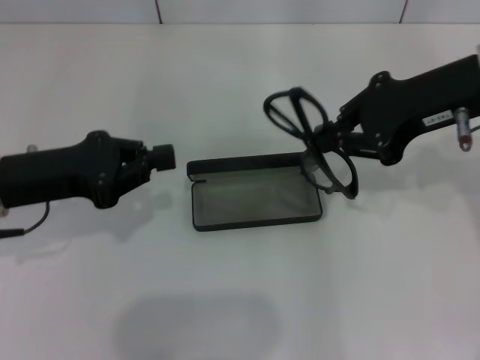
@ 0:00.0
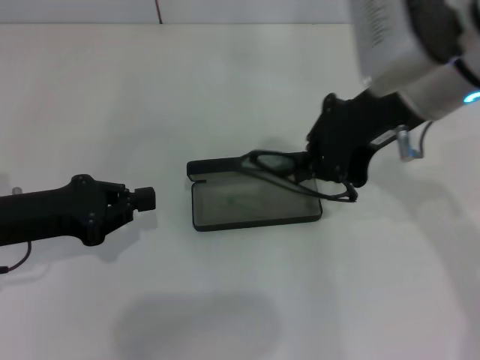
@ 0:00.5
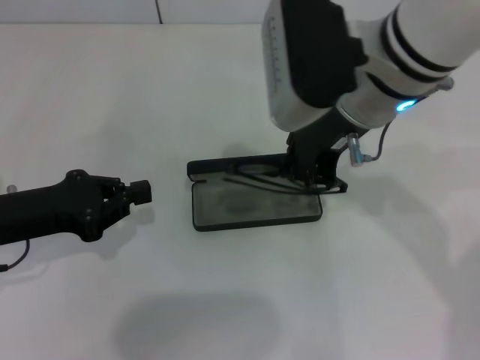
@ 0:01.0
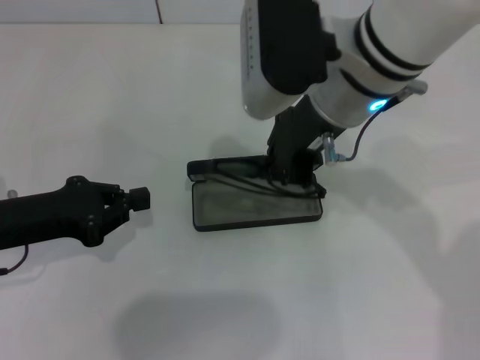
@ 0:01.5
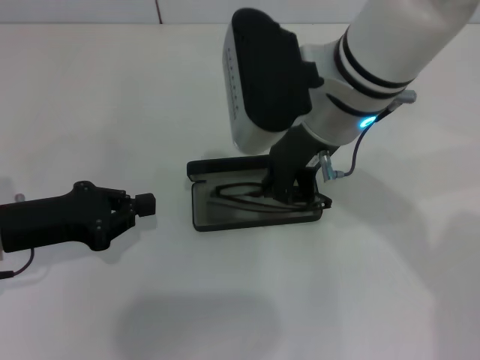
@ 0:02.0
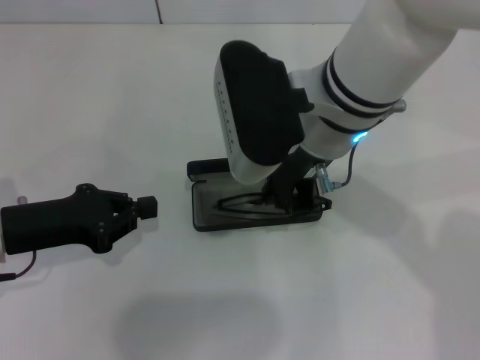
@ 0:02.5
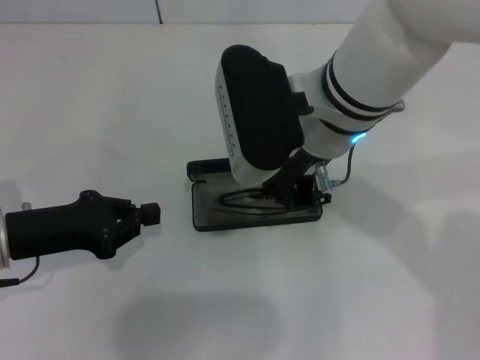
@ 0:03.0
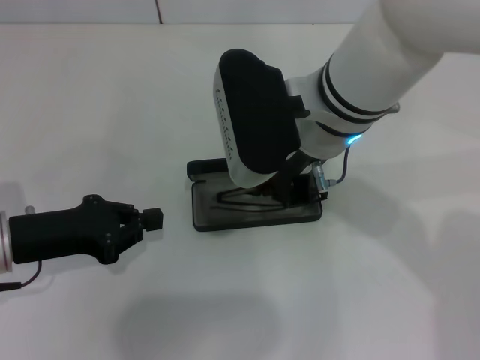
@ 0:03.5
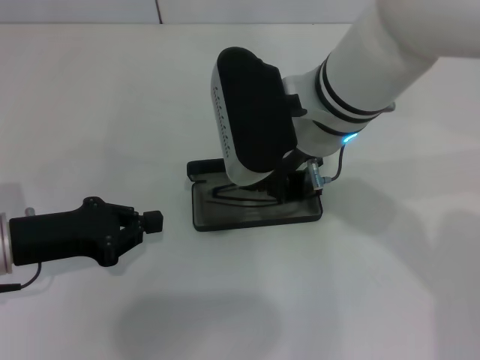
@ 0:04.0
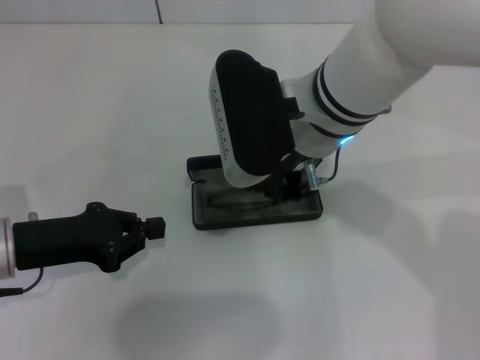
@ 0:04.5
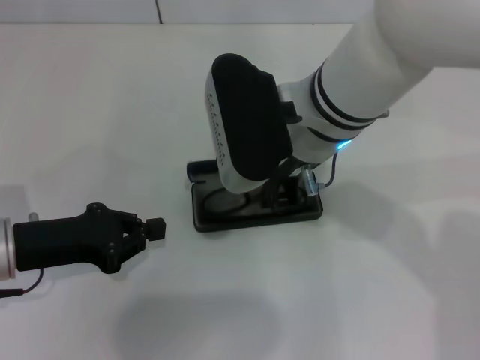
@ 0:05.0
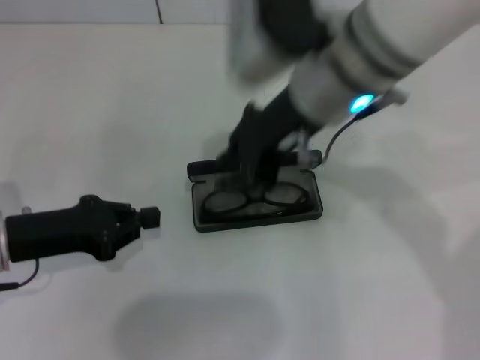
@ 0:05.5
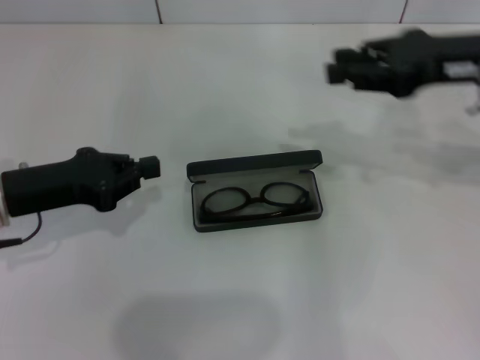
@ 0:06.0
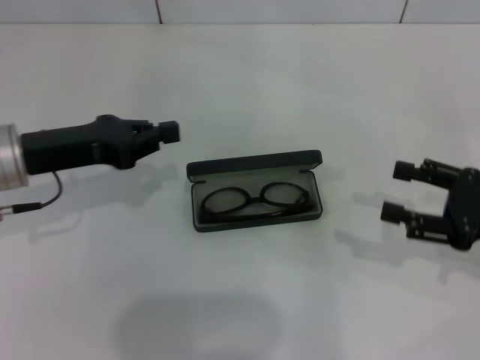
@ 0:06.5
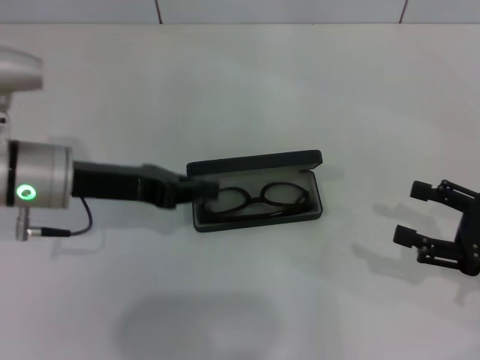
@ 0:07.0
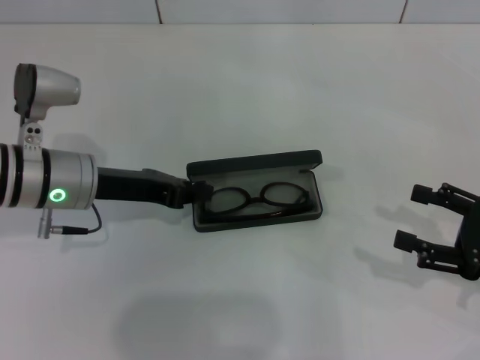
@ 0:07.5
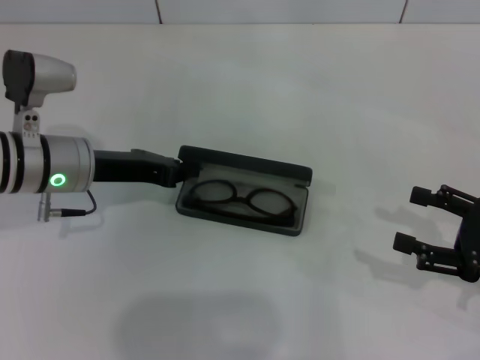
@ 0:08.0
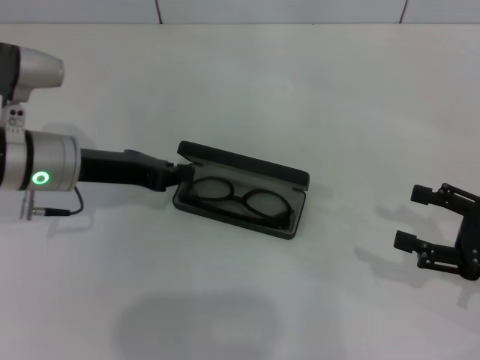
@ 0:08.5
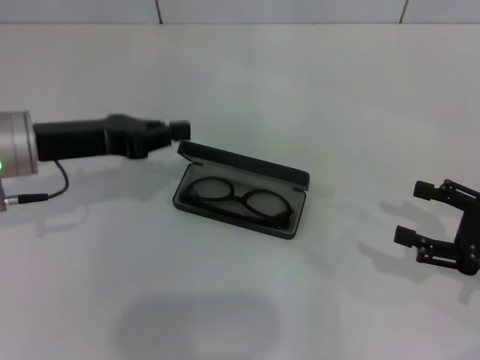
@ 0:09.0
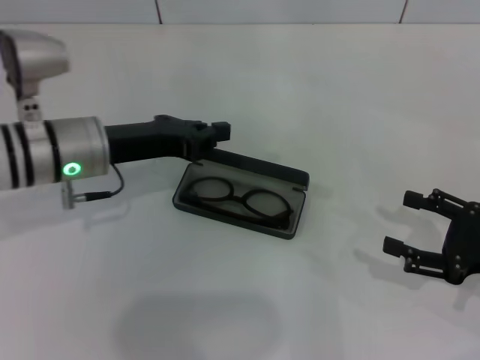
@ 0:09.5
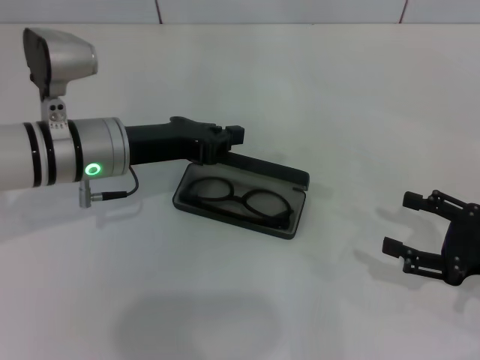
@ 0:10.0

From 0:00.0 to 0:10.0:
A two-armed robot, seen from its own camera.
Step, from 0:00.0 to 0:05.0: Put the glasses into the case with your right hand.
From 0:00.0 to 0:02.0: The right gripper goes about 15 cm to the left.
From 0:02.0 to 0:04.0: There are only small adjustments of the grippers.
From 0:04.0 to 0:06.0: The right gripper heads to the right, covering some 20 cm, and opens up.
From 0:06.0 to 0:08.0: The right gripper shifts roughly 20 cm downward, backward and to the right, and opens up. The left gripper goes some 10 cm forward and to the right.

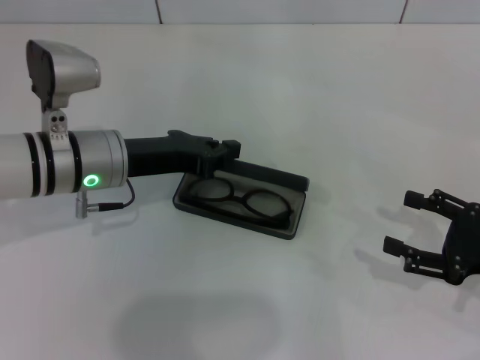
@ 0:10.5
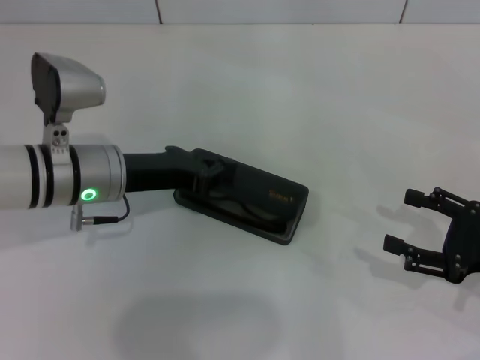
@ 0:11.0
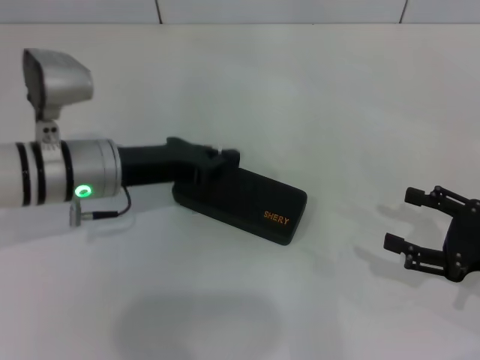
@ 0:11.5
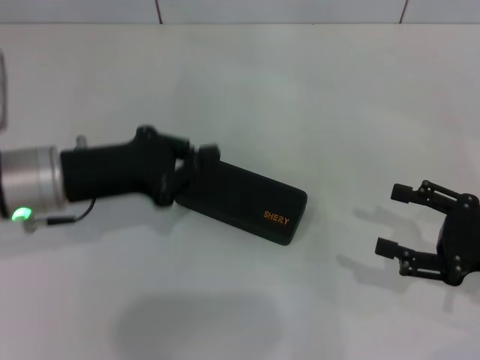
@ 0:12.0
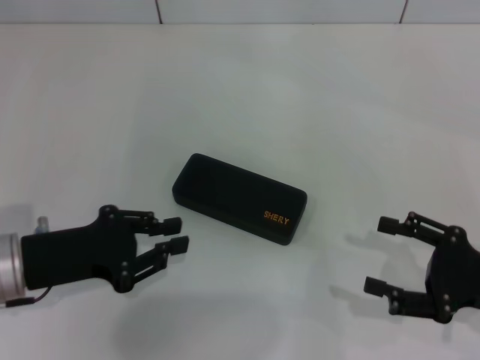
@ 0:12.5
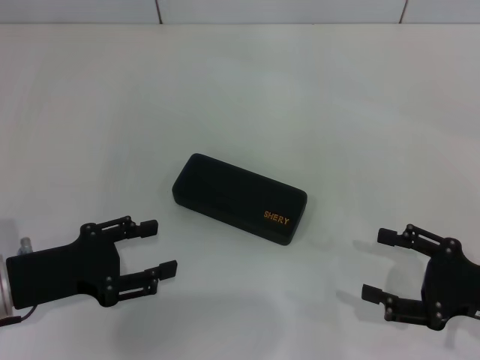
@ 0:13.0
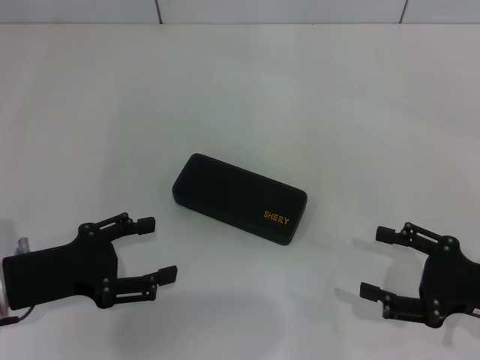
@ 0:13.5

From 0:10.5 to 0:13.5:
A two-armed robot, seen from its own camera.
From 0:10.5 to 0:12.0: The left gripper moves some 5 cm.
From 0:12.0 to 0:13.5: The left gripper heads backward and downward, covering roughly 10 cm, and opens up.

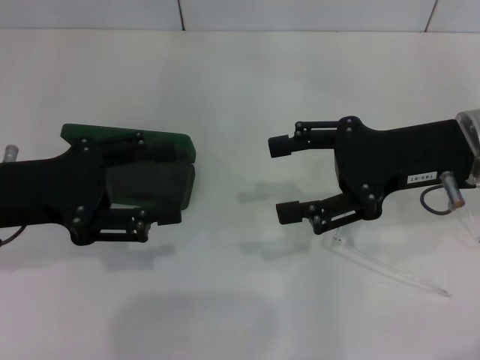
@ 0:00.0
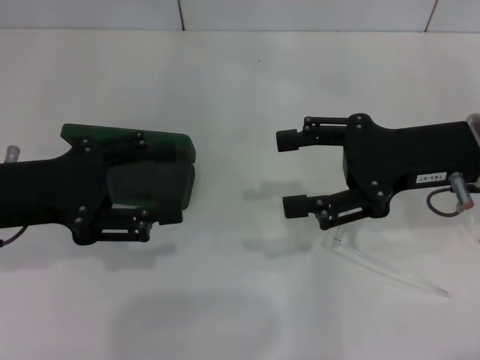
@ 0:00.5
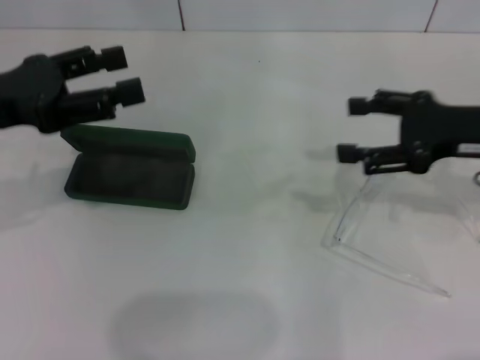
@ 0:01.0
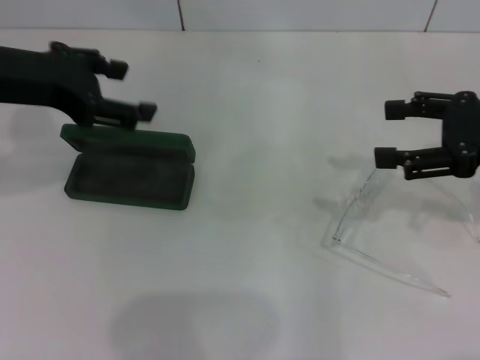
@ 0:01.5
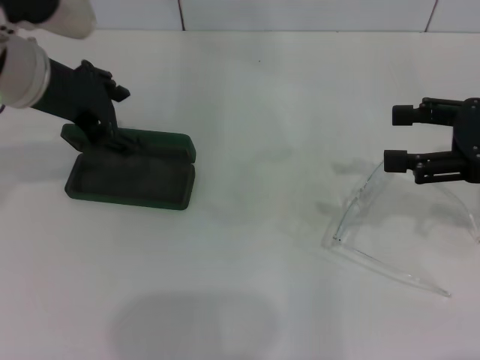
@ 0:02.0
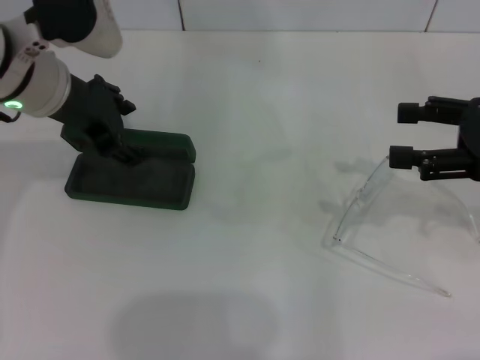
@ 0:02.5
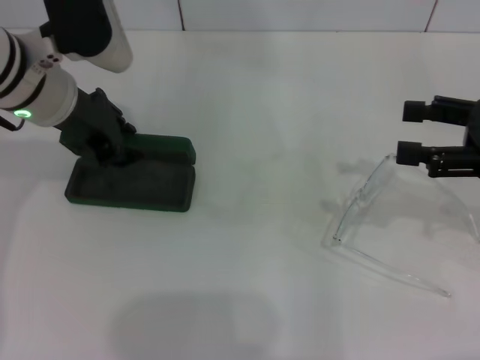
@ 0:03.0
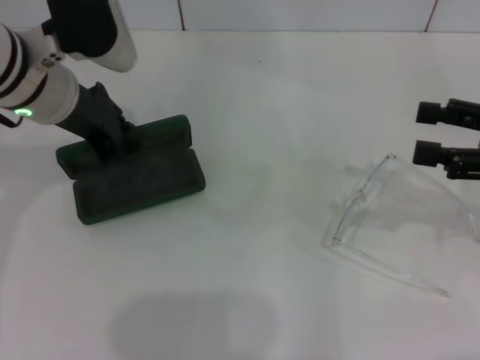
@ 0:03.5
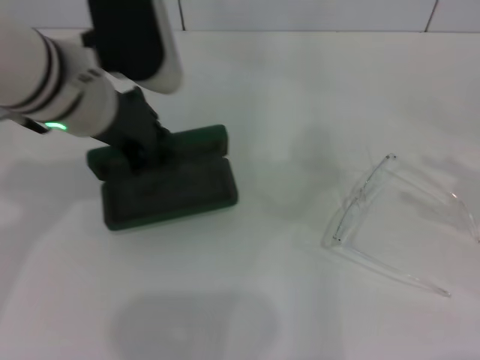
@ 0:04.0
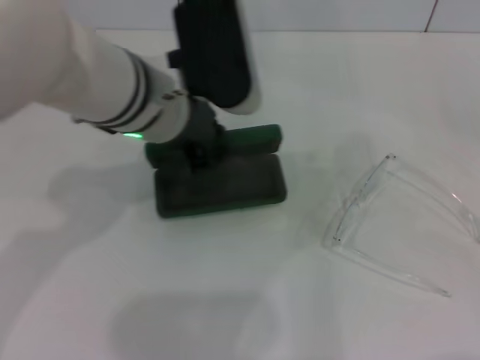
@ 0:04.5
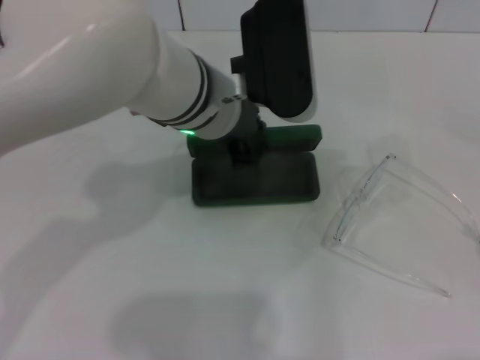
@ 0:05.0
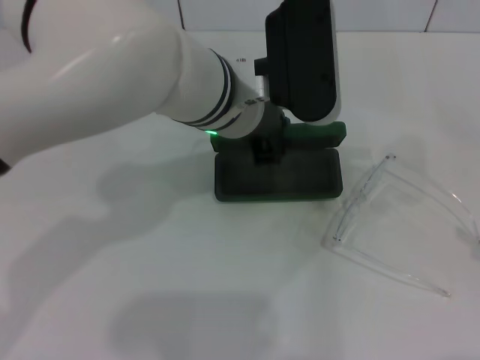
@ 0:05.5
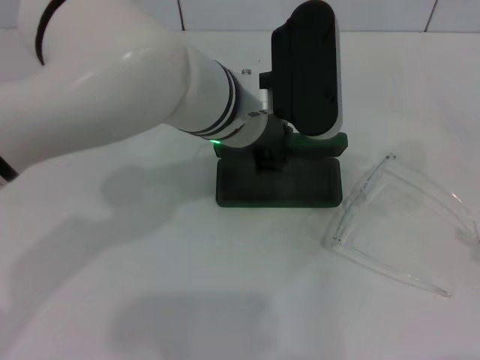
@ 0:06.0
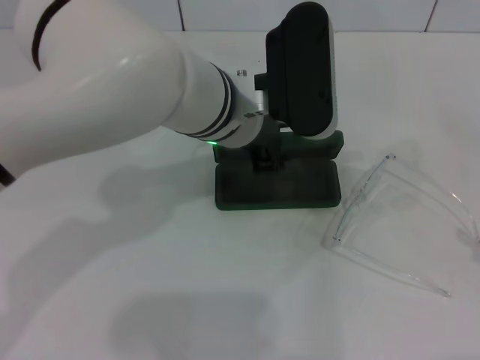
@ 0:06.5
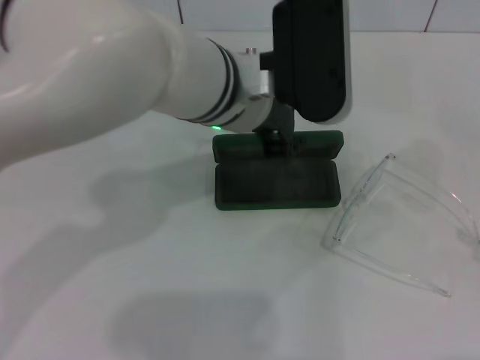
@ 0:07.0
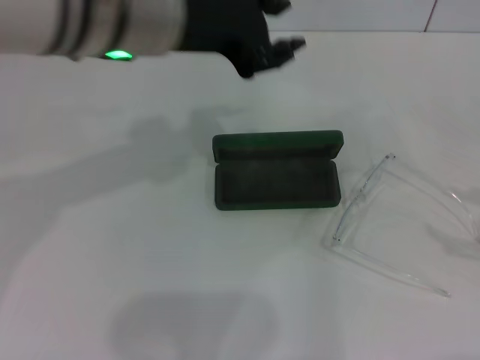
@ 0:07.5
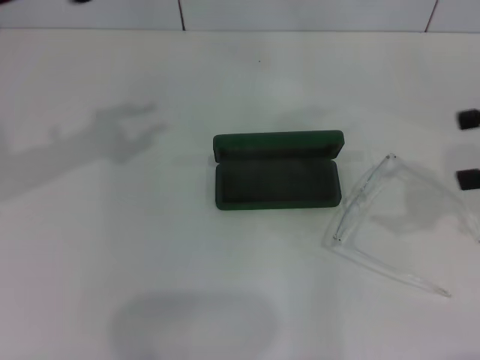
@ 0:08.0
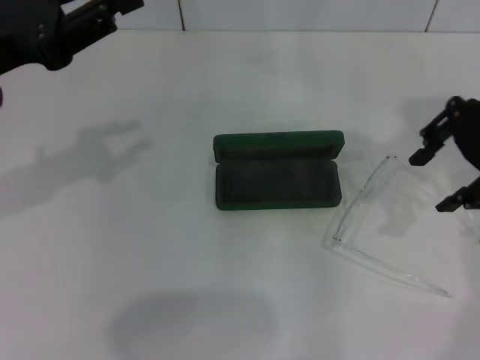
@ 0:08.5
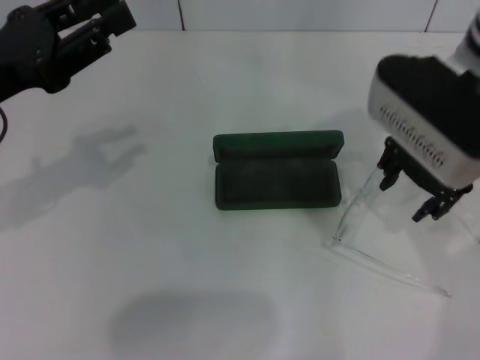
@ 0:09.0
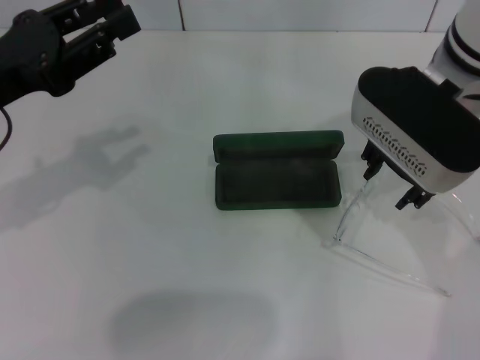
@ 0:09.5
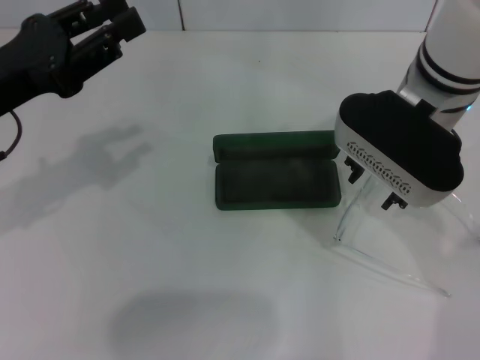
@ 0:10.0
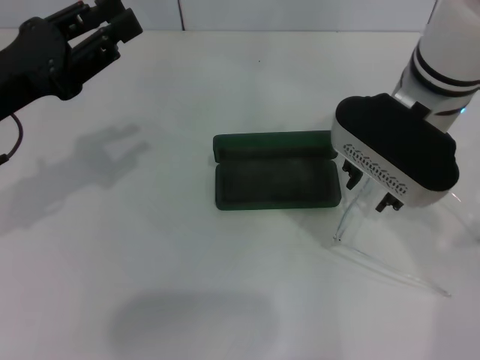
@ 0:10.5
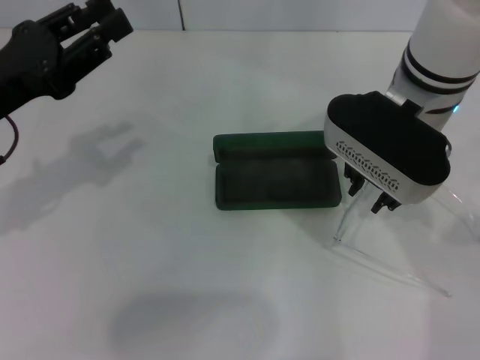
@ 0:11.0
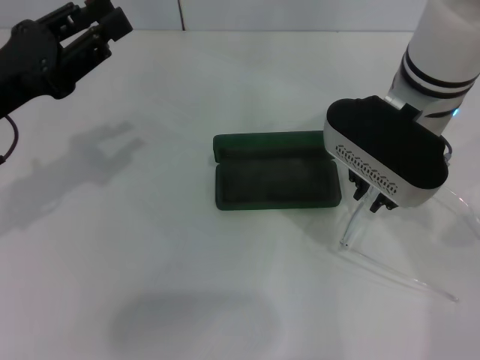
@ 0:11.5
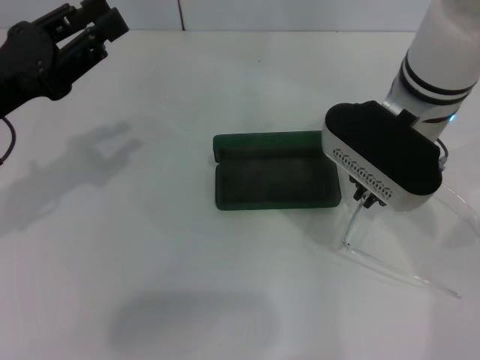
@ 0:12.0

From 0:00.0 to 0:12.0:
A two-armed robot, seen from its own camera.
Step, from 0:00.0 to 0:03.0: Grab the glasses case with your left hand.
Step, from 0:03.5 to 0:06.0: Place the glasses case in the center of the table with your left hand.
Step, from 0:06.5 to 0:11.5: Grab the eyeglass frame with your right hand.
From 0:00.0 to 0:02.0: The right gripper shifts roughly 10 cm to the right; the left gripper goes some 15 cm forward, to the right and upward.
From 0:02.0 to 0:04.0: The left gripper travels to the right by approximately 5 cm, and closes its fingers; the right gripper moves to the right and backward, about 10 cm.
From 0:04.0 to 0:06.0: The left gripper goes about 10 cm to the right. The right gripper travels backward by approximately 10 cm.
From 0:06.0 to 0:08.0: The right gripper goes approximately 20 cm forward, to the left and upward, while the left gripper shifts about 25 cm to the left and upward.
From 0:08.0 to 0:10.0: The right gripper goes some 20 cm to the left, and closes its fingers, while the left gripper goes roughly 10 cm downward.
From 0:10.0 to 0:12.0: The right gripper closes up.
